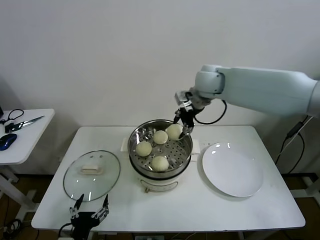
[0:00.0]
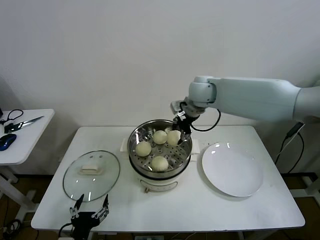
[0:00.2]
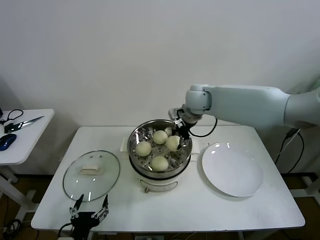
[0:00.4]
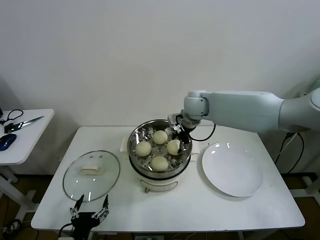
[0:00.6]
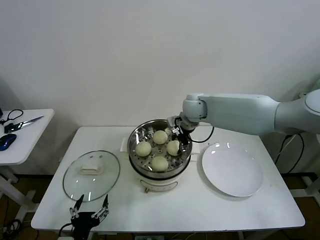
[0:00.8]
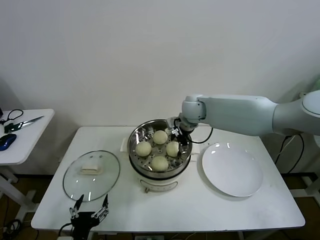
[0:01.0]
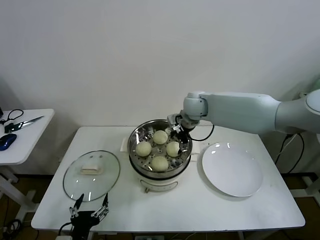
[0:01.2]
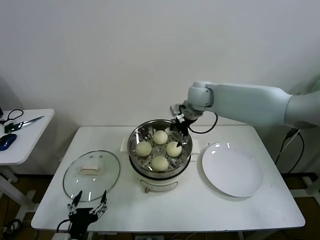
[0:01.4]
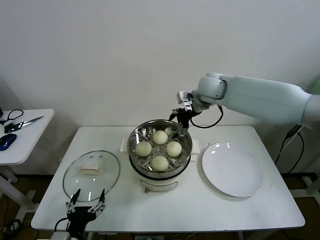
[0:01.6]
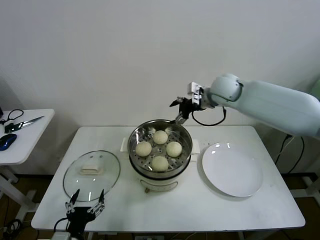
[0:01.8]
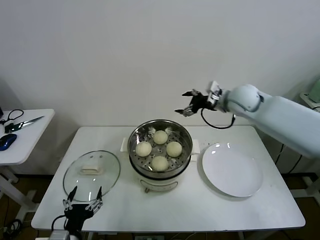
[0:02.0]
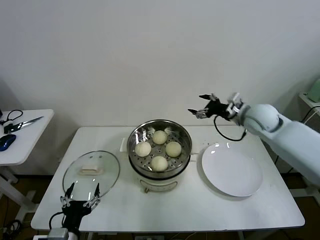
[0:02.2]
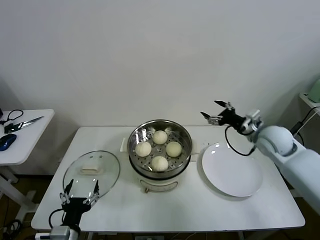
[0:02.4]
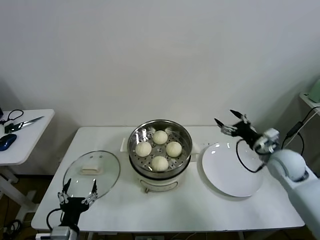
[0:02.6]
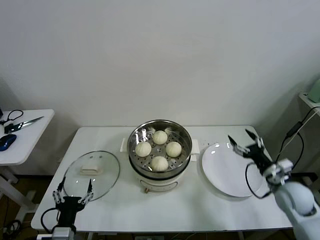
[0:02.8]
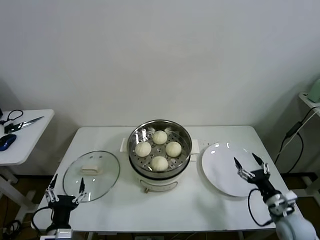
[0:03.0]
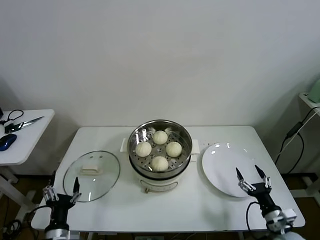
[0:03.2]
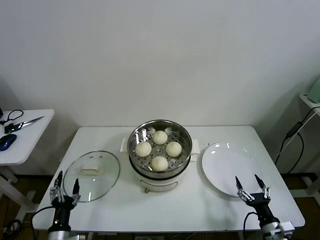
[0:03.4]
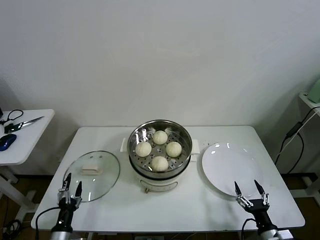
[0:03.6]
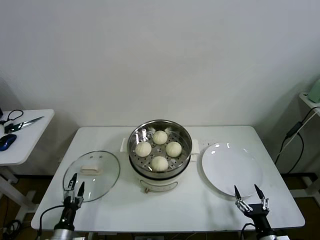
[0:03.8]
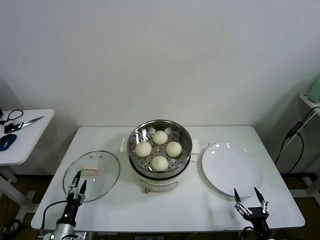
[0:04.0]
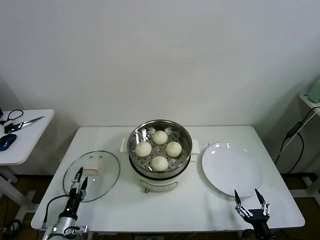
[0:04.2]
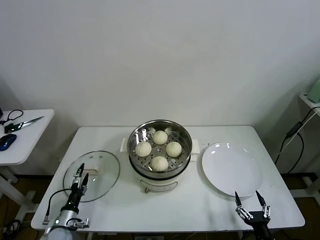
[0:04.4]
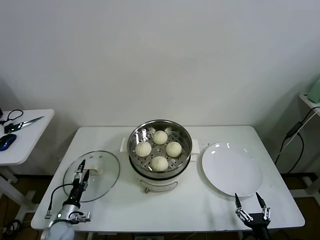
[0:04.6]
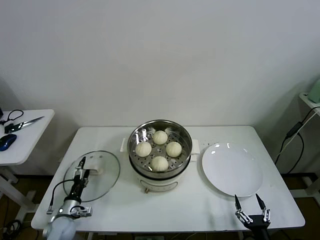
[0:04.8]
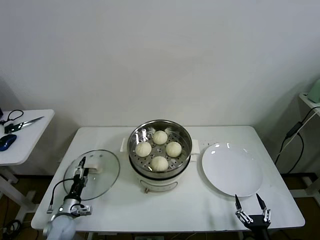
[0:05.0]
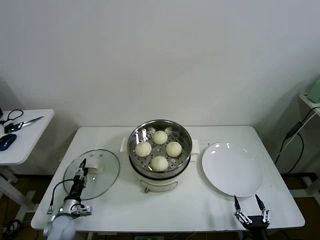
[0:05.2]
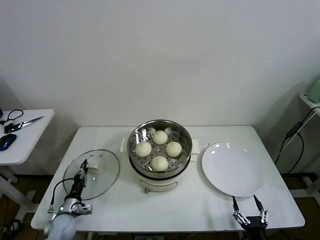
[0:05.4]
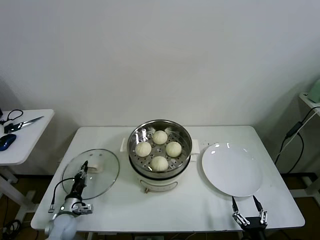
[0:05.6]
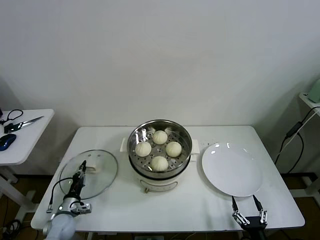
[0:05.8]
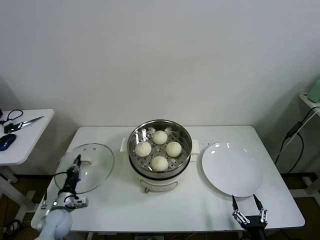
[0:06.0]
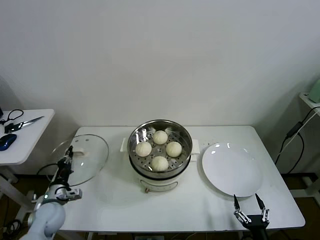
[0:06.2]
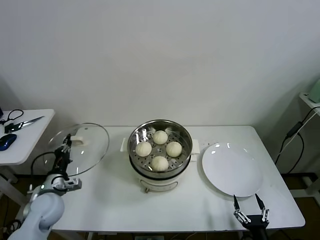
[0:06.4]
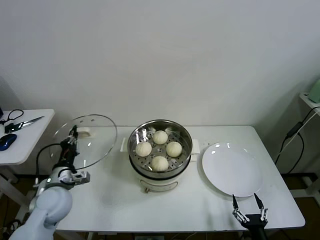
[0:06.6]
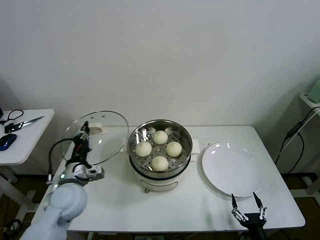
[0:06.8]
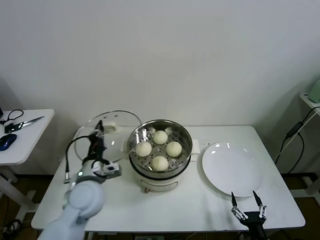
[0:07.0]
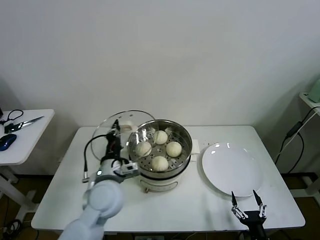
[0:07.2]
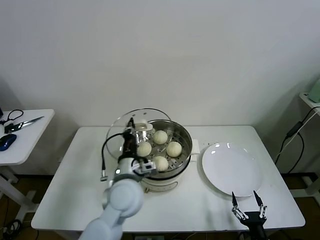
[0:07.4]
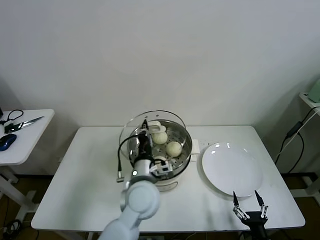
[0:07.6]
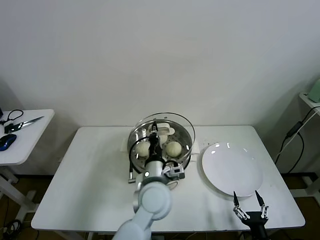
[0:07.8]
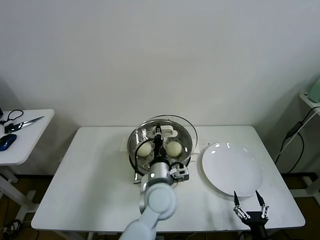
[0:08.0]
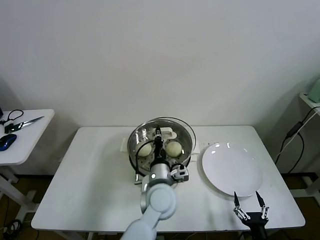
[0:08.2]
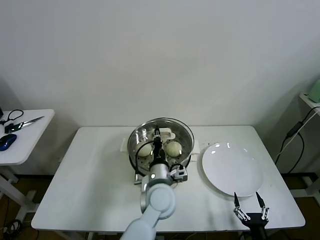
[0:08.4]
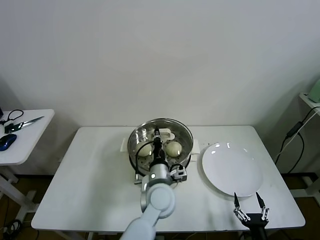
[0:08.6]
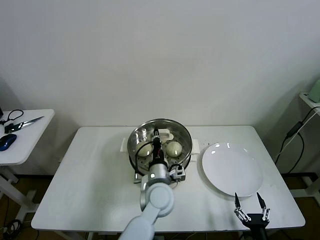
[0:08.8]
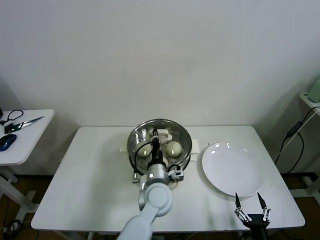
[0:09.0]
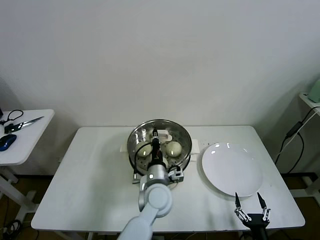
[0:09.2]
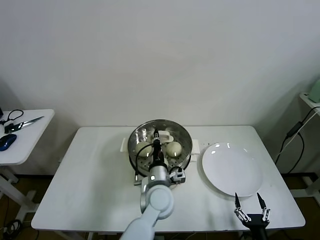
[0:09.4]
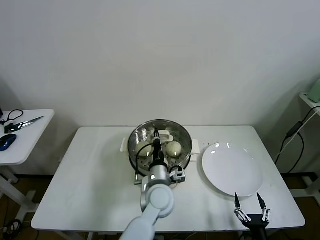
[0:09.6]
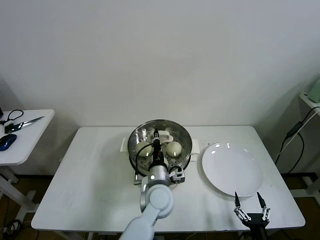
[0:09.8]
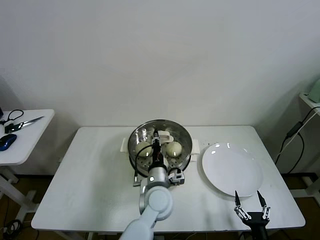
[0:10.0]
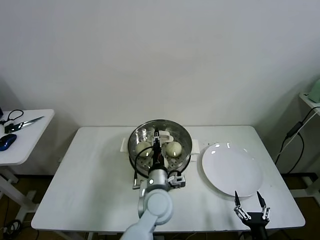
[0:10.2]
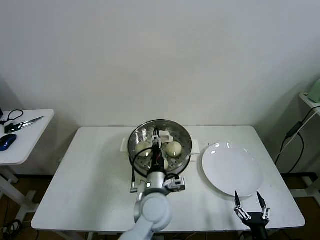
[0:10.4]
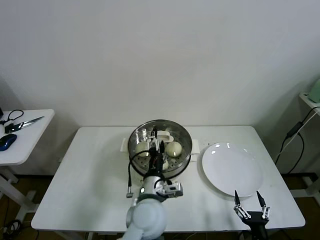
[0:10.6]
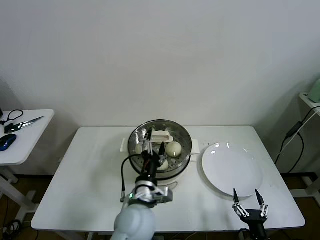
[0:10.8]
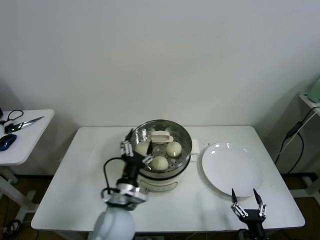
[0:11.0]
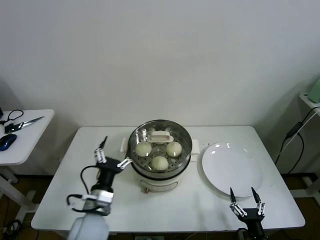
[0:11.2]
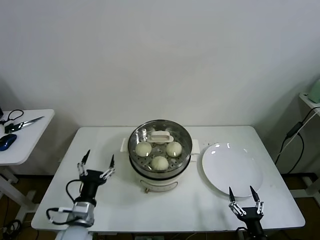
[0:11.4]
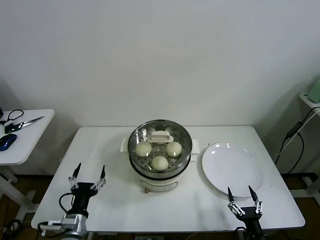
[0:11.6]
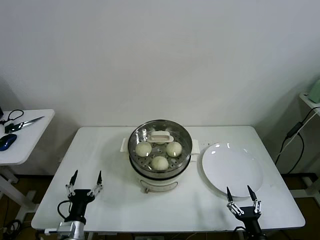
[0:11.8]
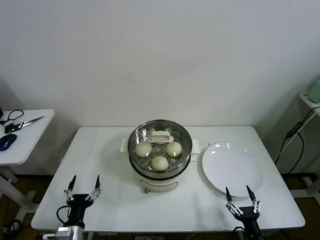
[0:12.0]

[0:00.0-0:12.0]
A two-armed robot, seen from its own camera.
Task of the whole recording: take steamed baozi put them in steamer then cover it.
Step, 1.2 to 5.6 s: Grasp the pot lid with left gripper.
Step, 5.8 to 10.0 s: Place the pot lid on the steamer with left gripper.
0.0 to 1.6 s: The right gripper travels downward and back again, about 10 cm each way, and opens.
1.6 to 3.0 s: The left gripper moves roughly 5 cm. Meanwhile the right gripper heads backward, downward and to the right, covering roughly 50 cm.
3.0 to 4.4 s: The left gripper goes about 20 cm downward, forward and to the left. Meanwhile the right gripper goes roughly 15 cm backward, downward and to the left.
4.4 to 6.0 s: The left gripper goes roughly 5 cm forward, and closes its fingers.
6.0 to 7.6 s: The left gripper heads to the right and upward, covering approximately 40 cm.
7.6 to 9.0 s: The left gripper heads downward and to the right, covering about 10 cm.
9.0 to 10.4 s: The left gripper opens.
10.4 to 12.0 s: The left gripper shifts some 30 cm to the left, backward and downward, and opens up.

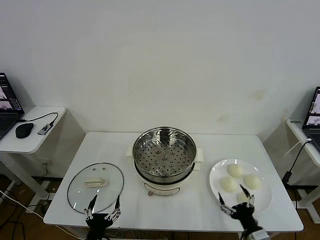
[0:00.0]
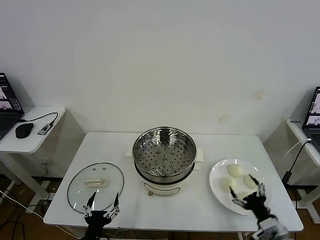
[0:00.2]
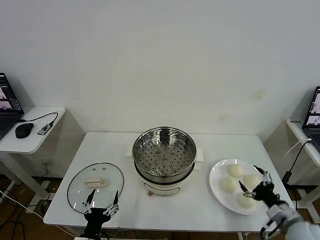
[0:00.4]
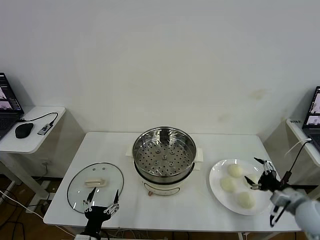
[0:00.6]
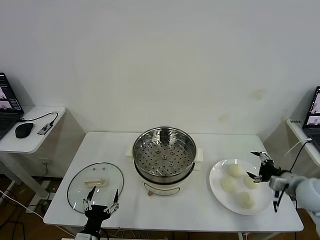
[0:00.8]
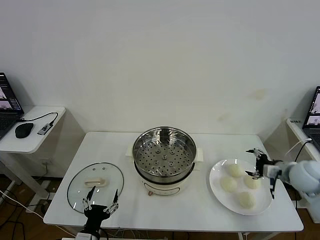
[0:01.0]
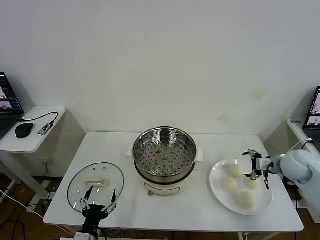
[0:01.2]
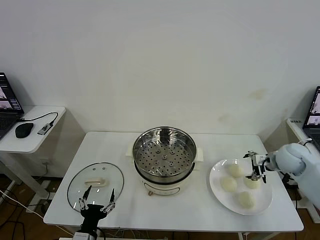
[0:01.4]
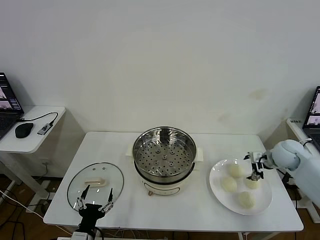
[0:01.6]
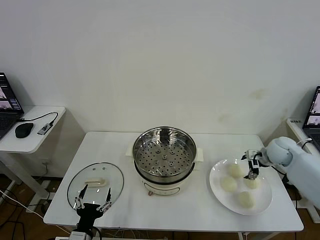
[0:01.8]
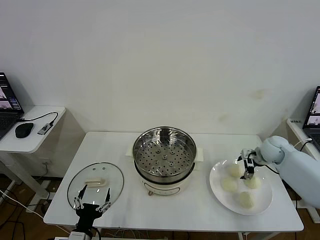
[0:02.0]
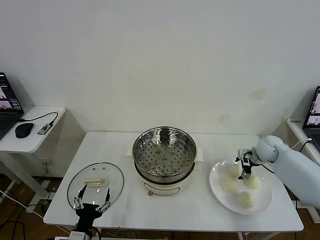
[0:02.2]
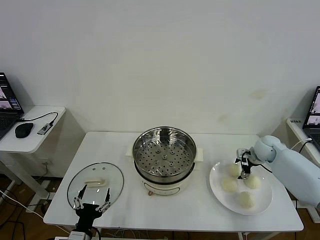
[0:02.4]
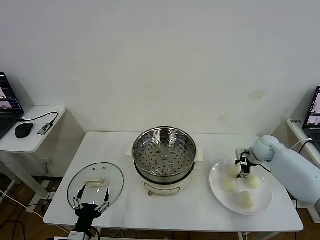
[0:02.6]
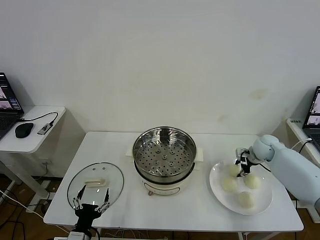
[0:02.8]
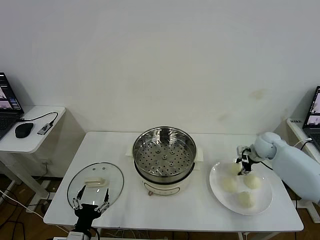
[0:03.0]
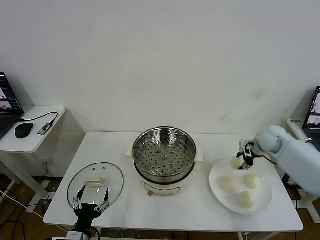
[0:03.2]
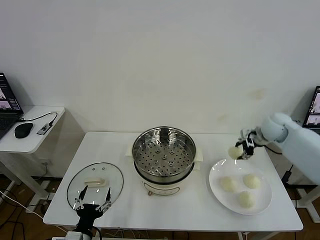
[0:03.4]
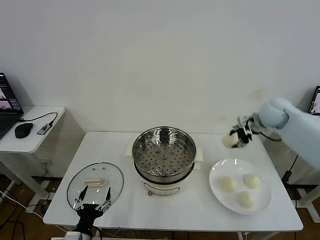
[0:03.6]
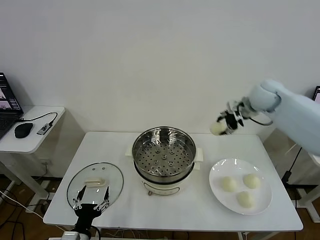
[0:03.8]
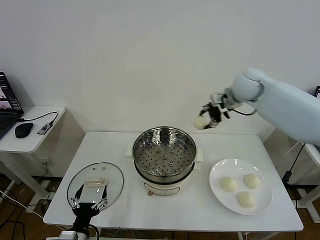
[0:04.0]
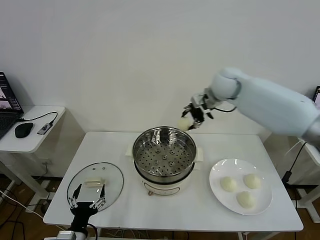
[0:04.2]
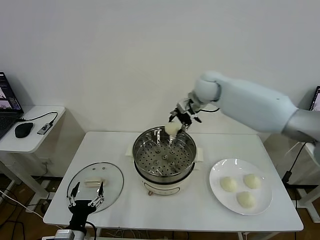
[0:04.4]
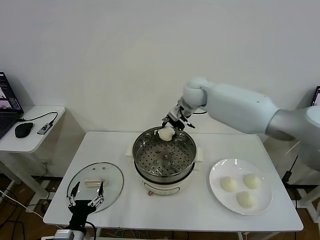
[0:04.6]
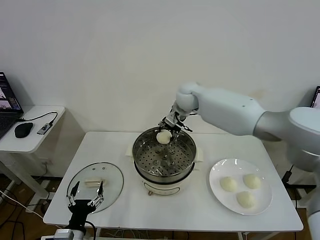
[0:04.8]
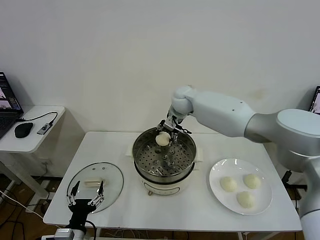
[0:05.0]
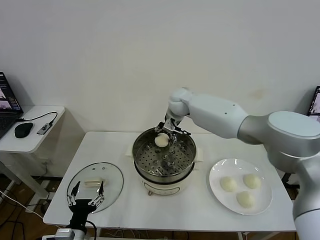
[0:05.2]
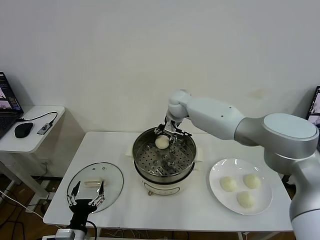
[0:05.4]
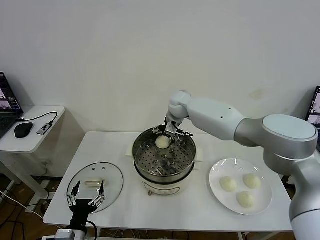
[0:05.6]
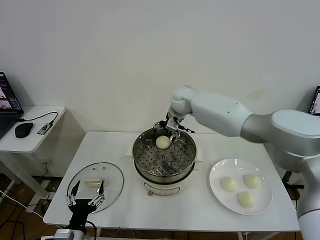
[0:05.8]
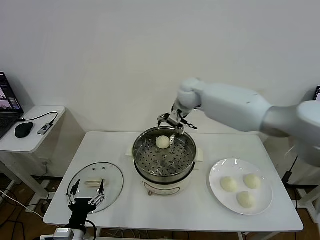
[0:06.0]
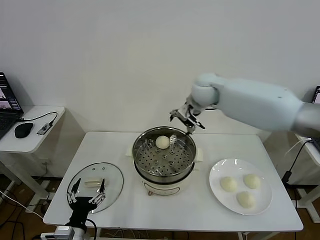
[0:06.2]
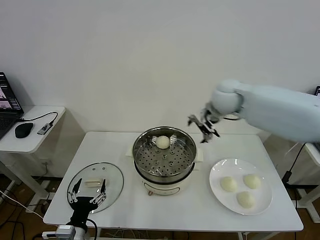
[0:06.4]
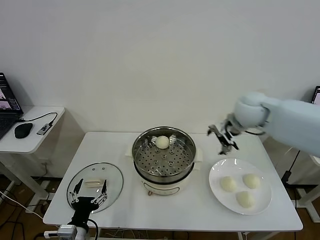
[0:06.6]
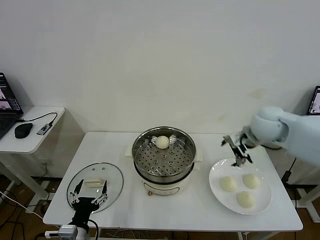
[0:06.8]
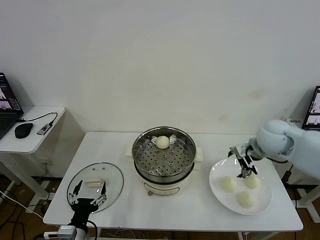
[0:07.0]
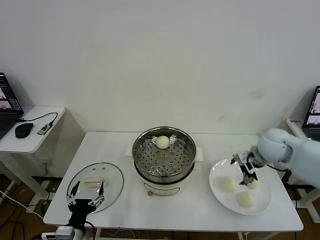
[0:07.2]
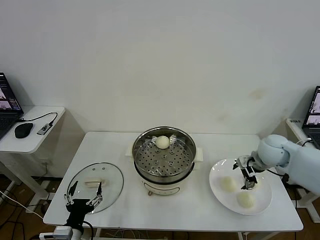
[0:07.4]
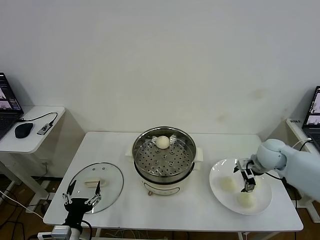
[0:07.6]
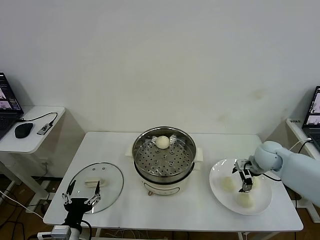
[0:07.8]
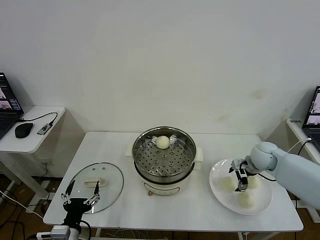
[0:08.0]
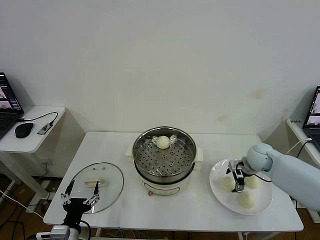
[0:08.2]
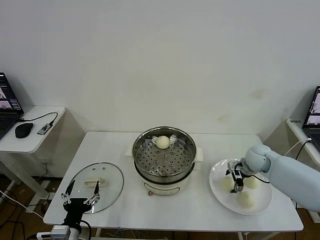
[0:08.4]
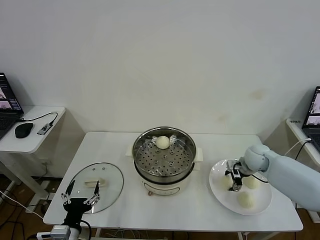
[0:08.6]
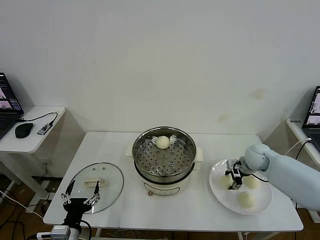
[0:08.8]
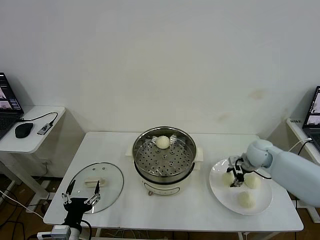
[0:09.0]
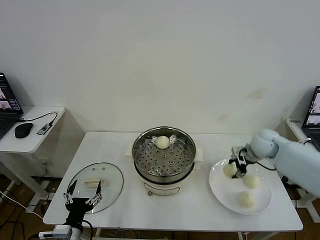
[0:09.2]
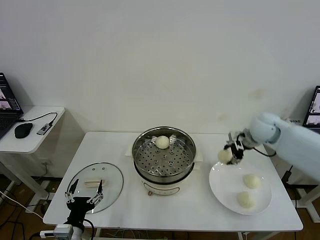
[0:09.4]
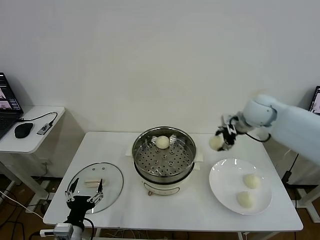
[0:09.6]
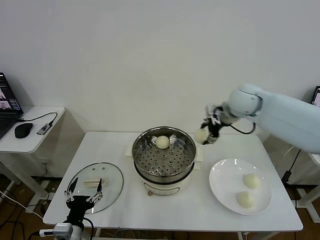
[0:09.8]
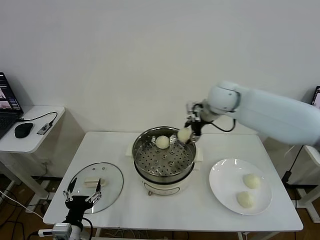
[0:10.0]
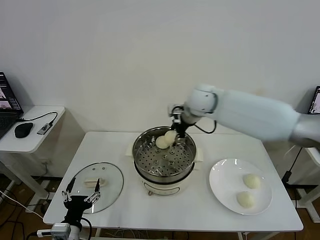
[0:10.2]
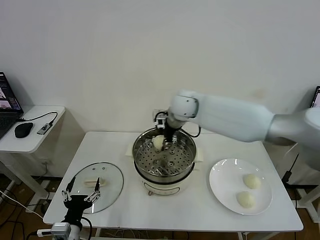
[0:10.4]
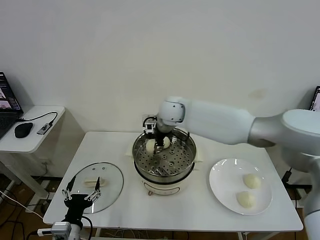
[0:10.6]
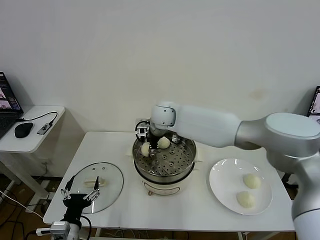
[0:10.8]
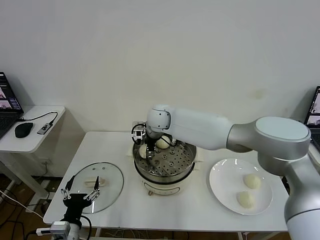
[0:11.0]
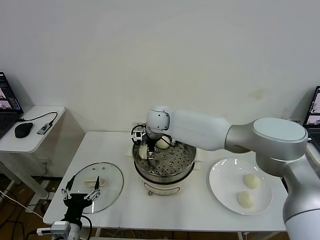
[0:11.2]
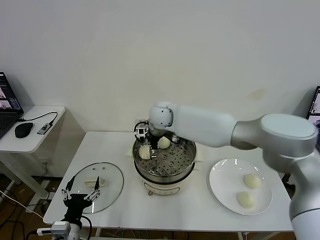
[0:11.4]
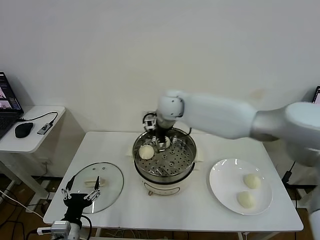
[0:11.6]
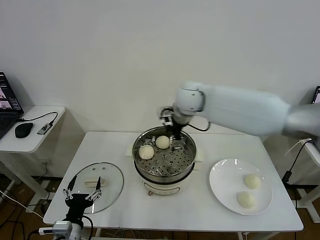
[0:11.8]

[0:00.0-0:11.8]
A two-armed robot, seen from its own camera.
Task of the whole recording: take steamed baozi put them in steamer then cover it.
Step, 0.0 to 2.6 s: Grasp the baozi in the plate with right gripper.
Step, 2.8 to 5.6 s: Place the baozi on the steamer with right gripper.
Step, 5.8 to 8.6 s: Grasp the baozi in the plate with right gripper.
Step, 8.8 to 11.2 s: Place the baozi on the steamer with right gripper.
1.4 to 3.0 s: The right gripper shifts roughly 5 cm forward, and closes its fingers.
3.0 to 4.4 s: The right gripper is displaced to the left and upward by some 35 cm.
4.4 to 6.0 s: The right gripper reaches some 10 cm downward, then returns, and opens its fingers.
6.0 to 7.4 s: The right gripper heads to the right, downward and backward, covering about 30 cm.
7.4 to 8.8 s: The right gripper is displaced downward by approximately 5 cm, and closes its fingers.
8.8 to 10.4 s: The right gripper is displaced to the left and upward by about 35 cm.
10.4 to 11.8 s: The right gripper travels to the right by about 5 cm, and opens.
